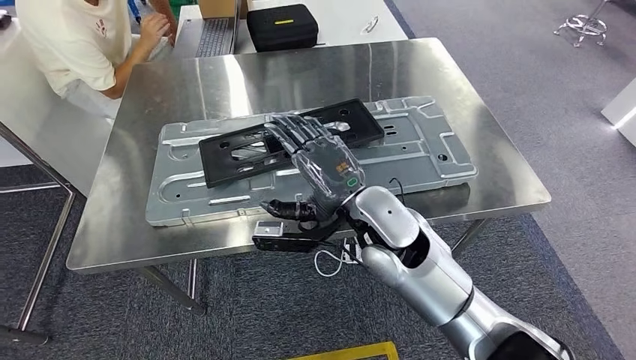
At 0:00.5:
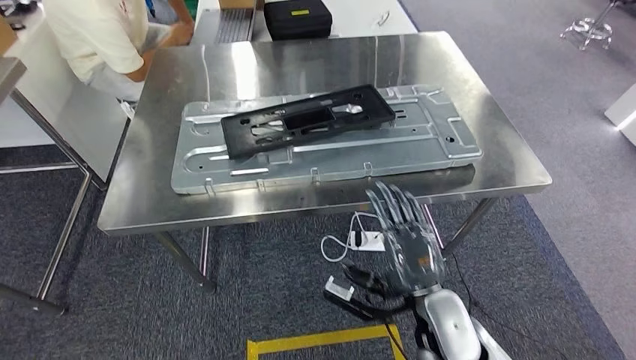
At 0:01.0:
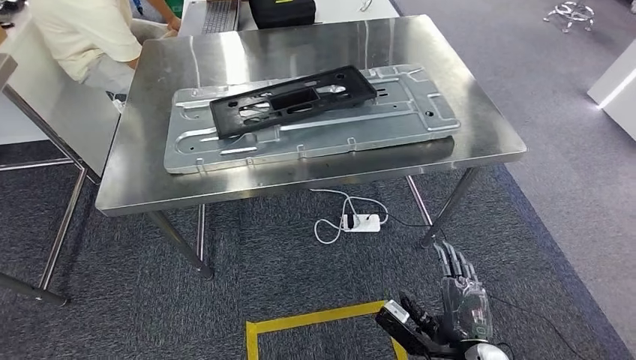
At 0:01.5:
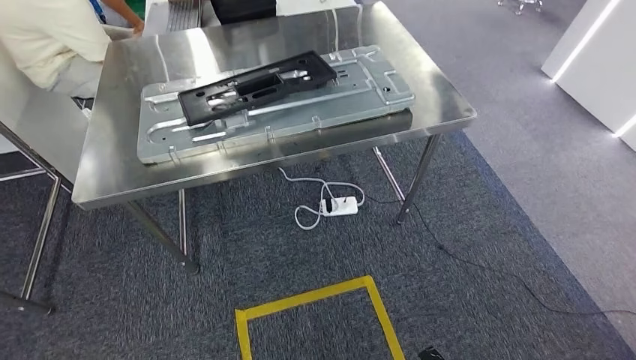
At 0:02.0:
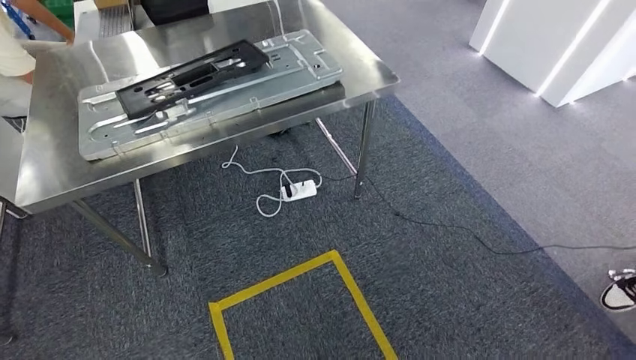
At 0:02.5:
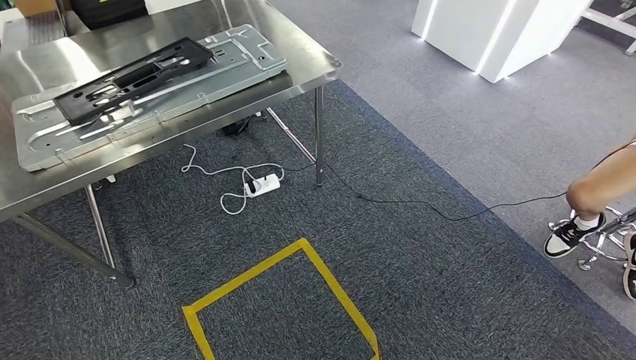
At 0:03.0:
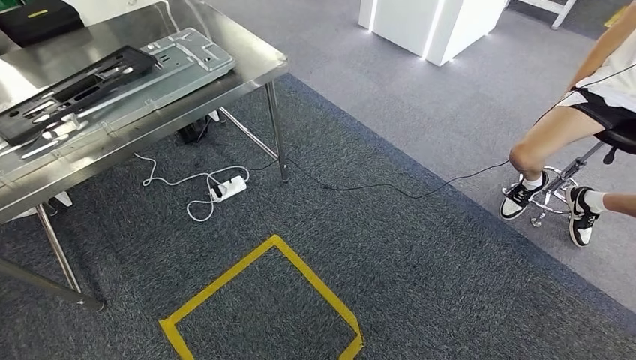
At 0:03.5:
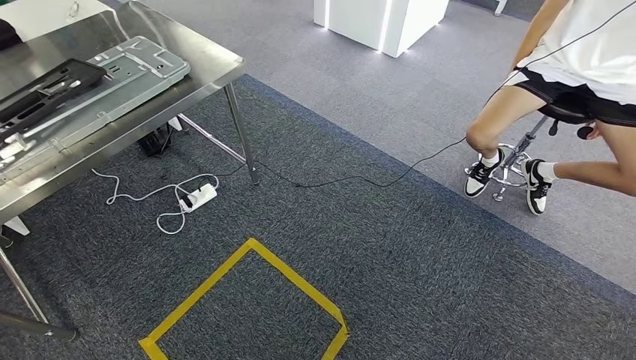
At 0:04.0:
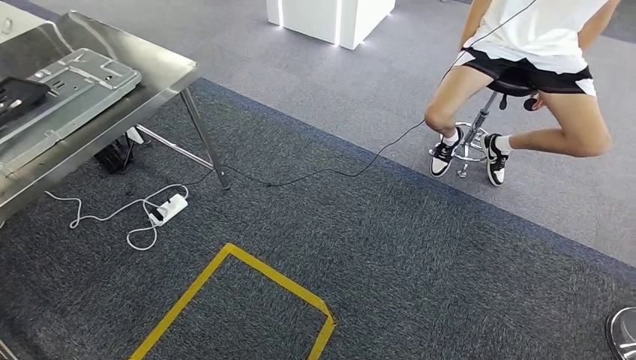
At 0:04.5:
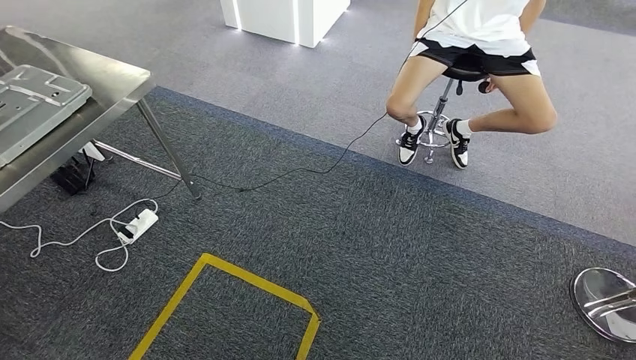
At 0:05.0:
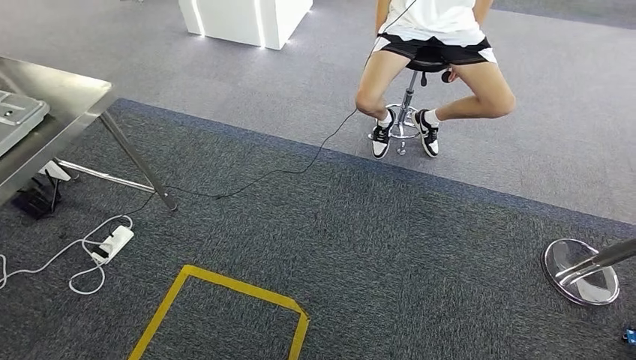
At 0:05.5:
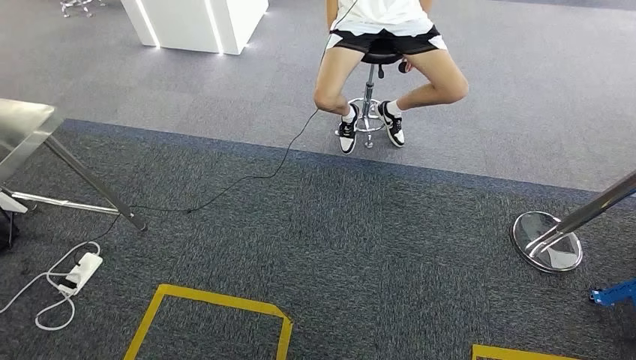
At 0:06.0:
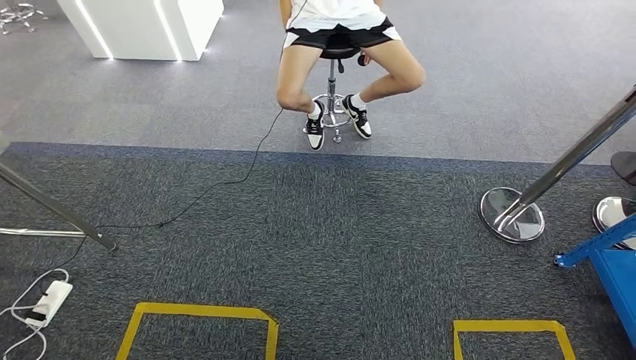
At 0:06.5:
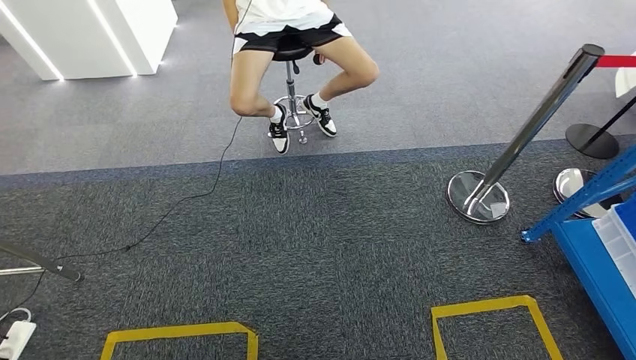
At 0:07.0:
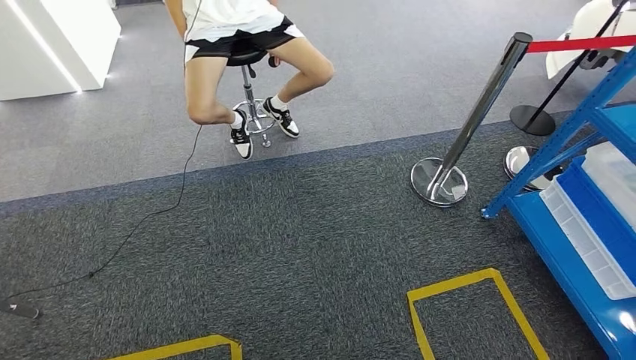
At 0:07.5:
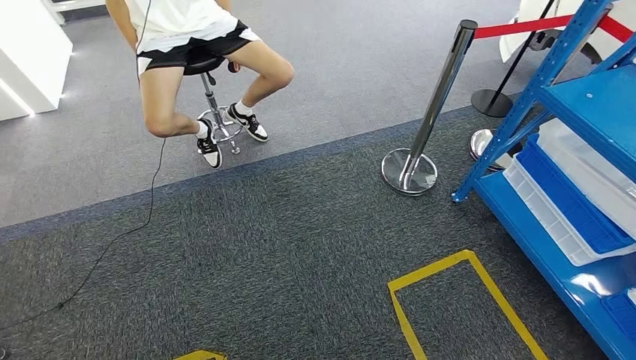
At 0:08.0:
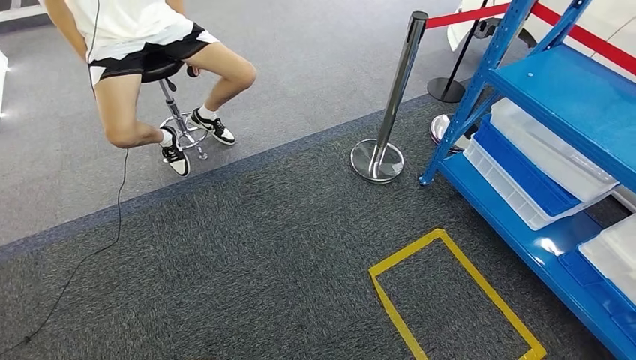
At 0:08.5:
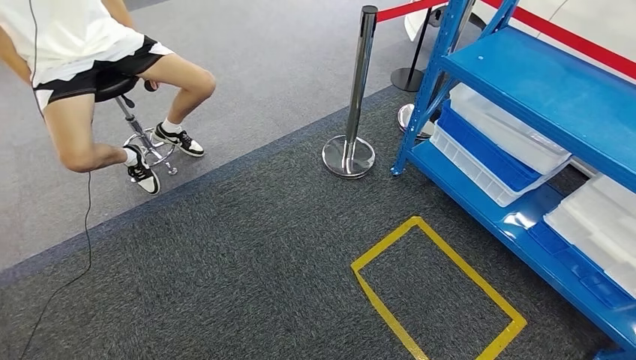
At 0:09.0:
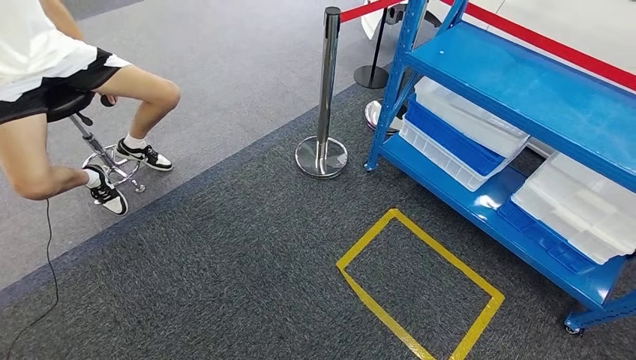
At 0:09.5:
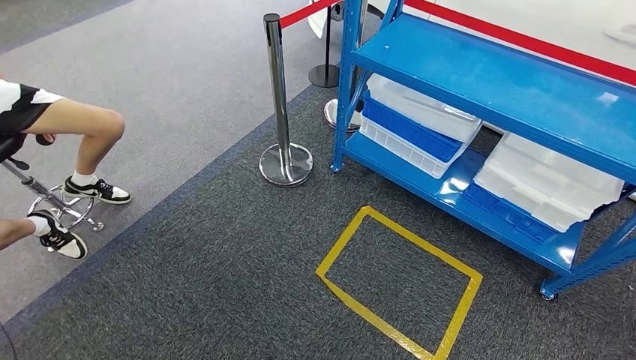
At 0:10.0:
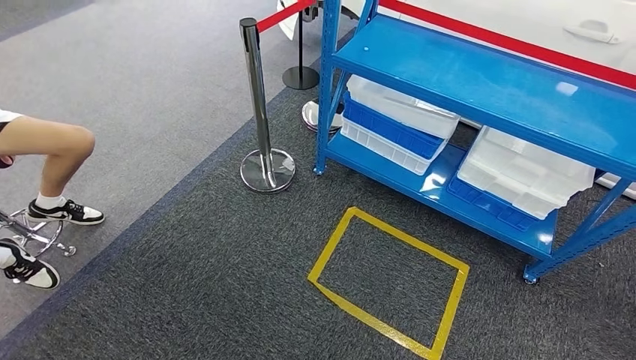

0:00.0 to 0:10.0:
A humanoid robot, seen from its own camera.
Step, 0:01.5 to 0:10.0: Move to the initial position of the shelf.
